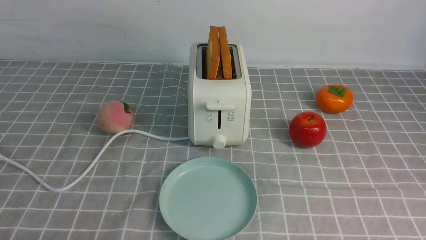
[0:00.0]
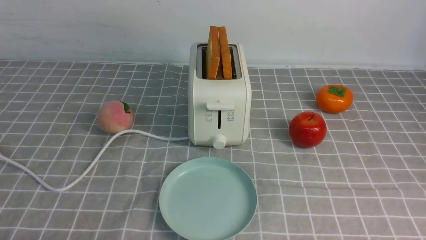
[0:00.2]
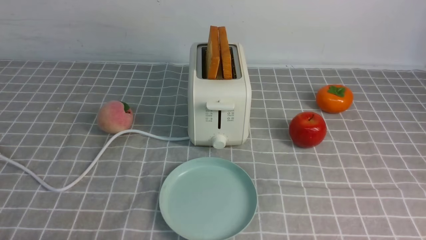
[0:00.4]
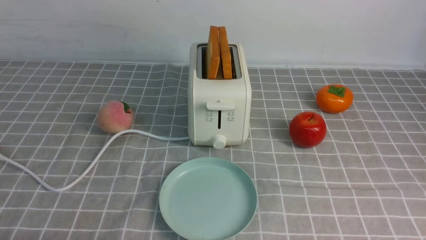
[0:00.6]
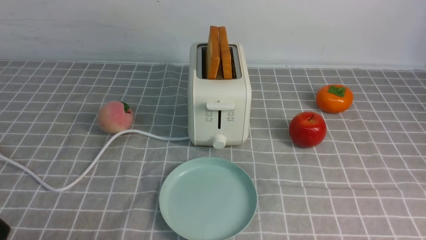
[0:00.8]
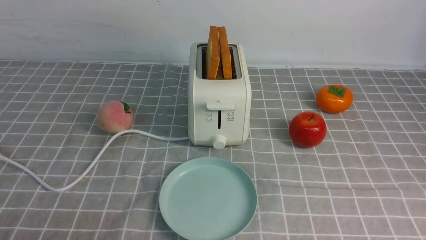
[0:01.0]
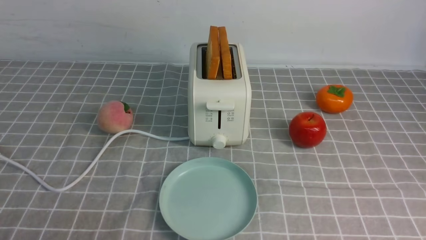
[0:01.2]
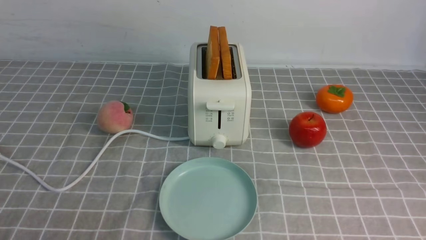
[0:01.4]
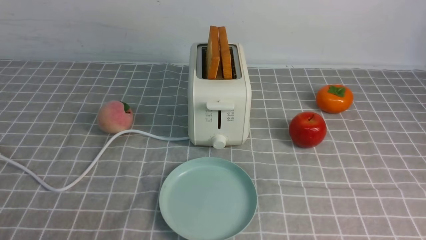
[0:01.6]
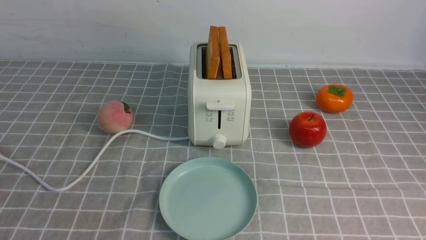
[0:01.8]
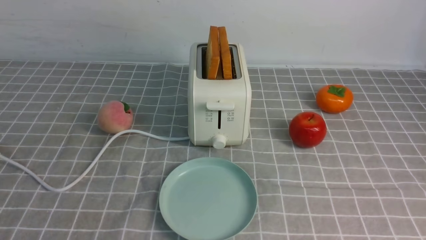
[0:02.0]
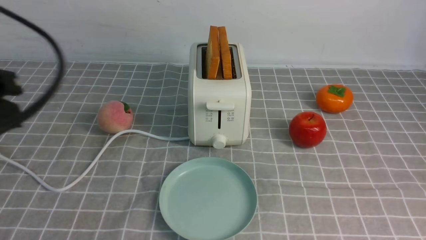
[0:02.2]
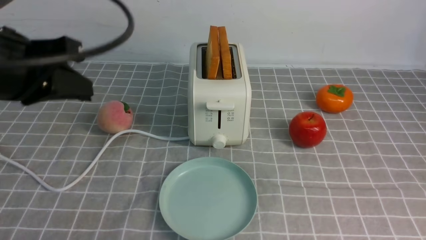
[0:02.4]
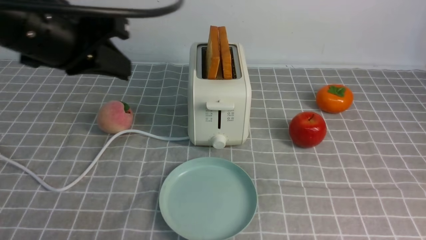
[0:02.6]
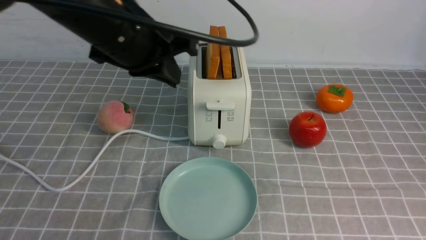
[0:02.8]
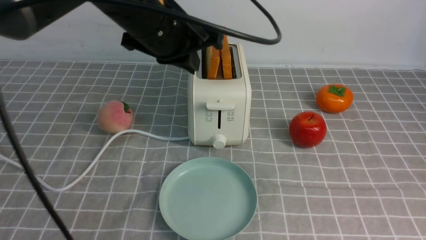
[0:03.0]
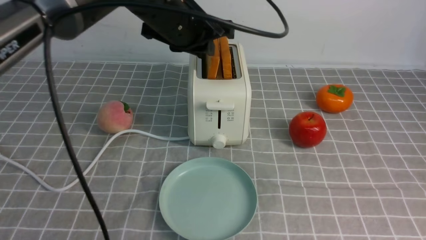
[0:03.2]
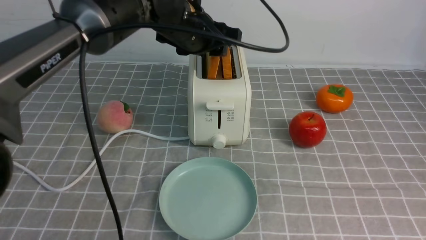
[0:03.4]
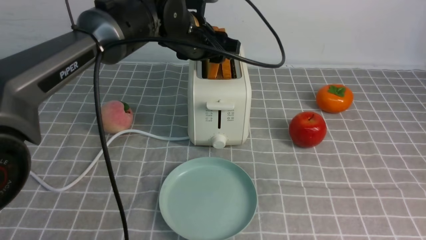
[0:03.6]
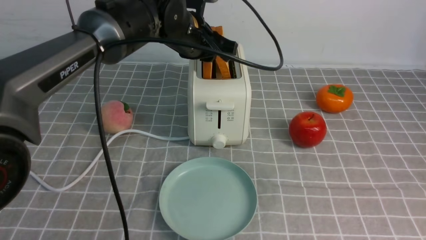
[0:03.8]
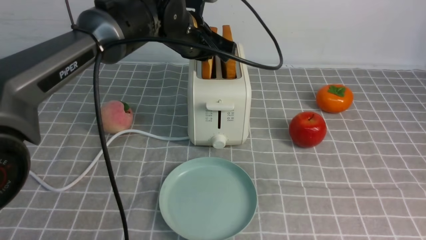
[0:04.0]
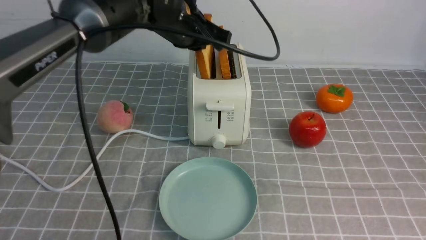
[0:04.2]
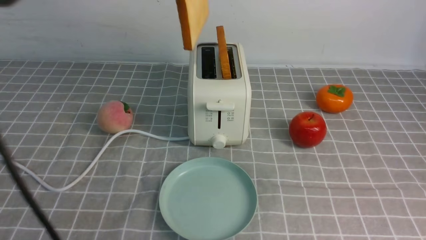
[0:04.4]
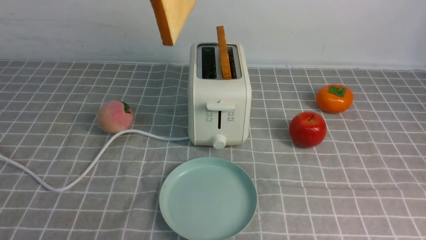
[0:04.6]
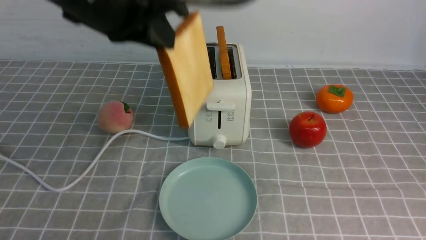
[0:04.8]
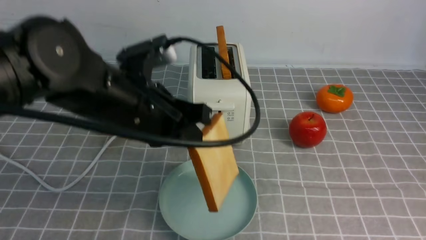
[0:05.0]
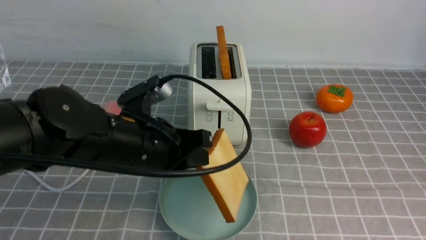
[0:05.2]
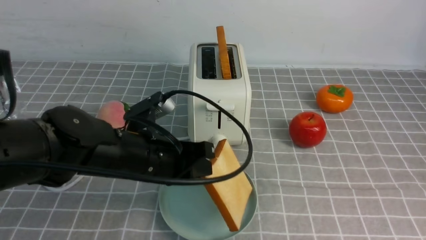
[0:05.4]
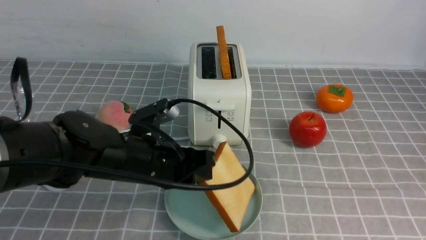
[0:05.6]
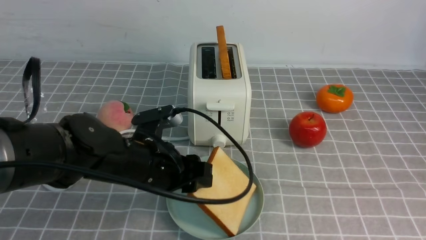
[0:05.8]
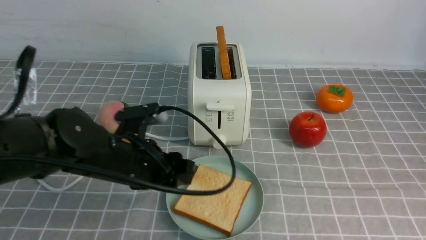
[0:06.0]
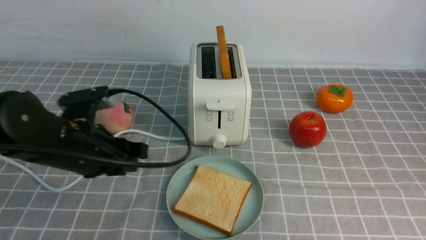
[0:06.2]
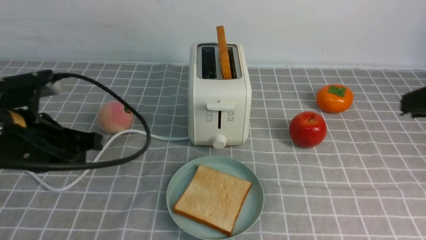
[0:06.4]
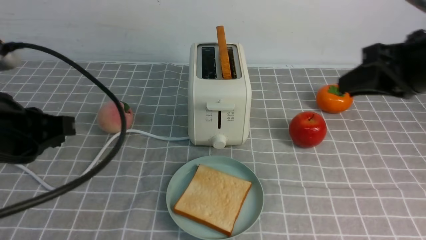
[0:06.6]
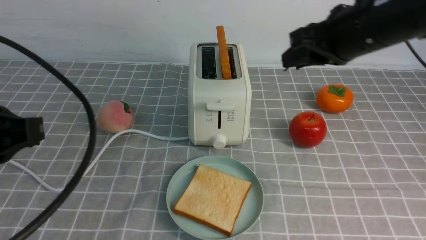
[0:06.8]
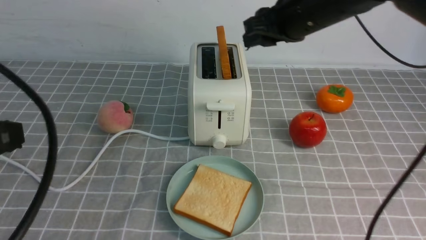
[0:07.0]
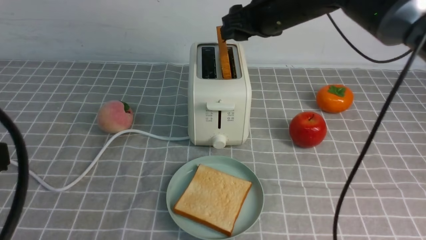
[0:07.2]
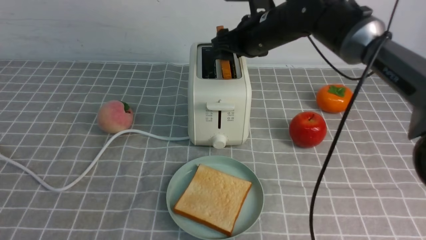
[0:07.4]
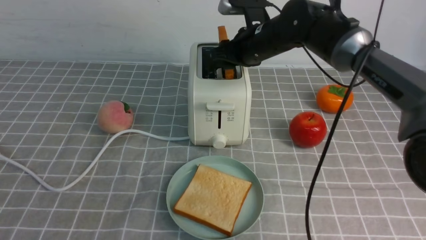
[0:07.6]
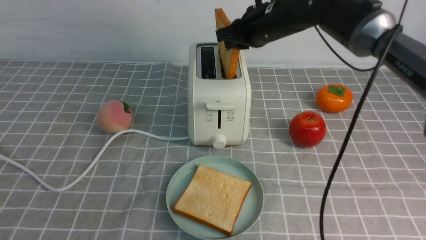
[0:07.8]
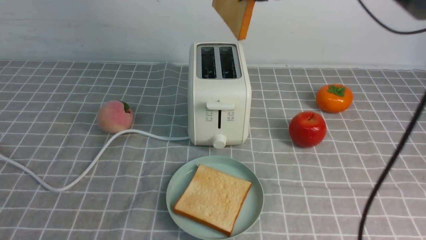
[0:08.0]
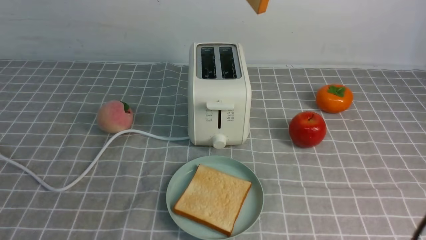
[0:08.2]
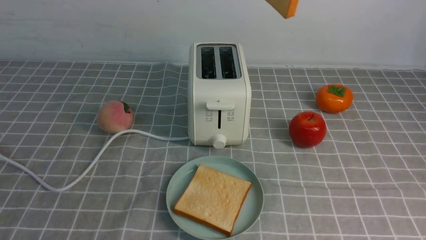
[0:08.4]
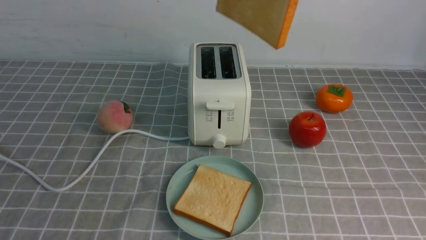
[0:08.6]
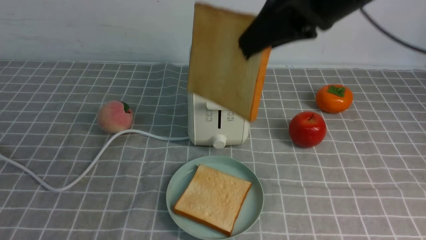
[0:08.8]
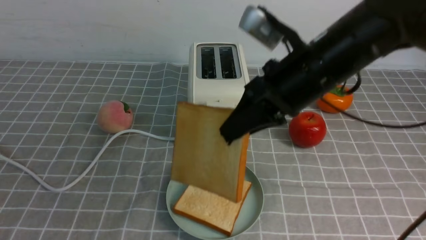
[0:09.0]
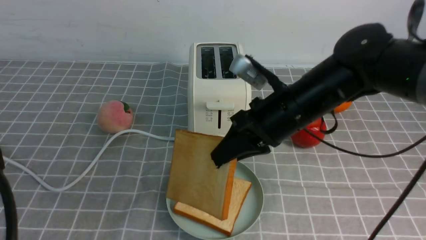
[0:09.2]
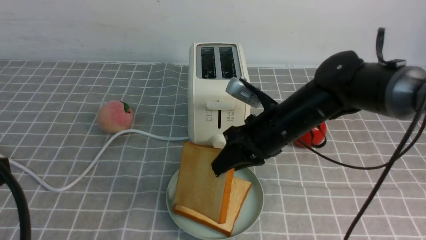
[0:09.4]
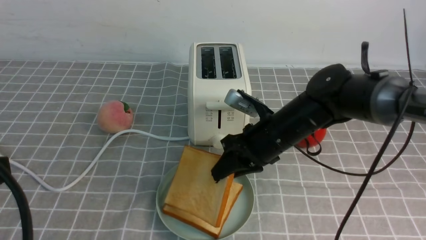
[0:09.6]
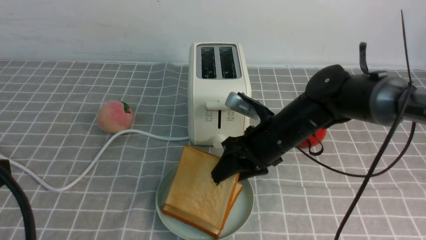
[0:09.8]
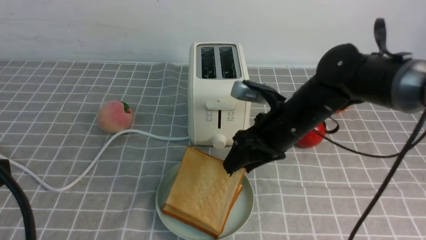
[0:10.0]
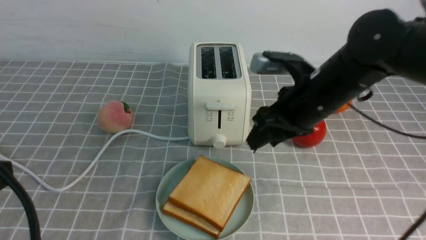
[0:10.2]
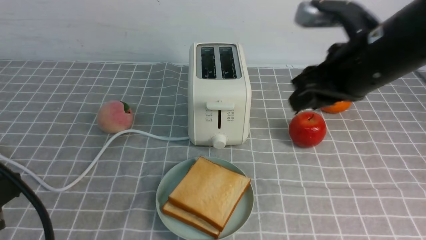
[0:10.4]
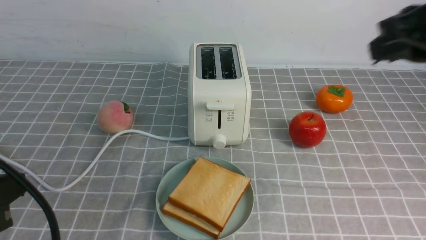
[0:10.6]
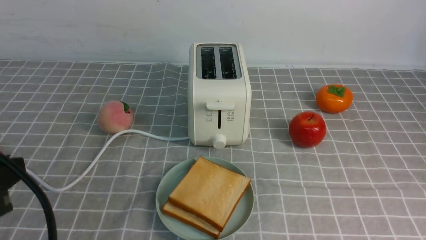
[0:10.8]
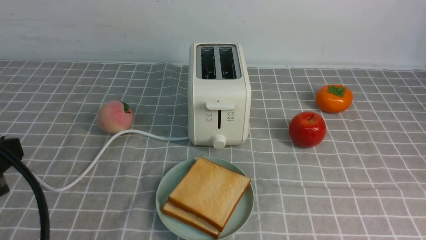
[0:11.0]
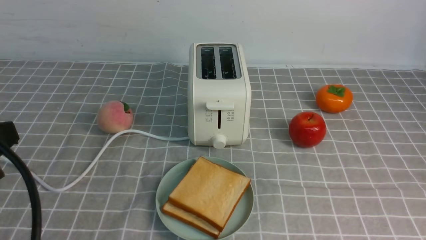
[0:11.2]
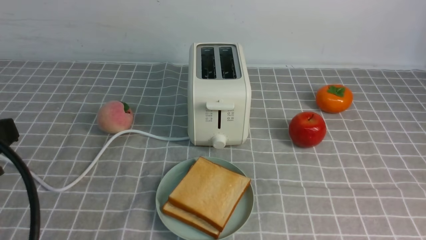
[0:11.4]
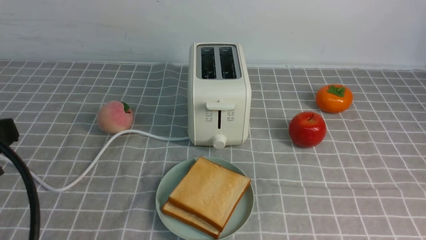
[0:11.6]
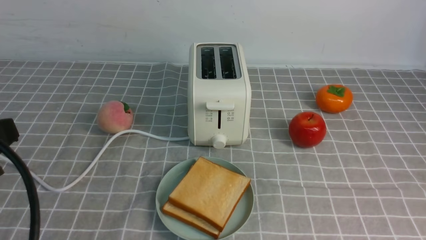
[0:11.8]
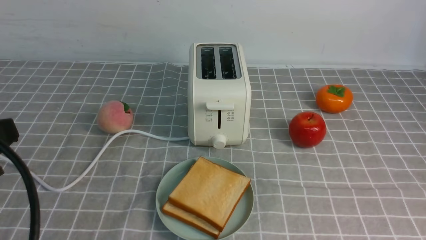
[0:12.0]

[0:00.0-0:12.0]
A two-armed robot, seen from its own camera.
Task of the whole recording: take toasted bread from bread machine on grey coffee table place on plate.
Step, 0:00.0 to 0:04.2: use the left arm to take out a slice of bread.
Step, 0:04.6 to 0:06.0: use the left arm to put a slice of bread into the empty plate.
Step, 0:06.2 to 0:07.8: use the right arm to take out a slice of bread.
Step, 0:08.0 to 0:10.0: use the right arm to put a slice of bread into the plate.
0:01.6 to 0:03.0: The left gripper heads forward and to the right, covering about 35 cm. Meanwhile the right gripper heads upward, covering approximately 10 cm, and closes.
0:03.0 to 0:04.4: The left gripper is displaced upward by about 5 cm, and opens, then closes once more.
0:04.4 to 0:06.0: The left gripper is displaced downward by approximately 25 cm, and opens up.
0:06.0 to 0:07.6: The right gripper goes roughly 40 cm forward and to the left, and opens up, while the left gripper shifts approximately 30 cm backward, upward and to the left, and closes up.
0:07.6 to 0:09.0: The right gripper shifts some 15 cm backward, travels upward and back again, roughly 20 cm each way, and closes.
0:09.0 to 0:10.4: The right gripper moves to the right, approximately 5 cm, travels downward and back again, approximately 15 cm each way, and opens its fingers.
0:10.4 to 0:12.0: The right gripper goes approximately 25 cm backward and to the right.

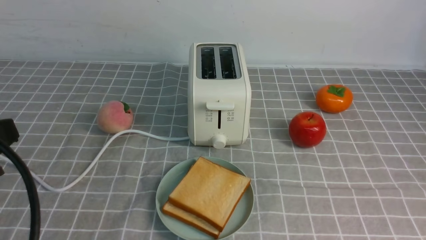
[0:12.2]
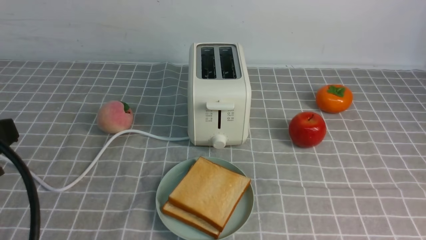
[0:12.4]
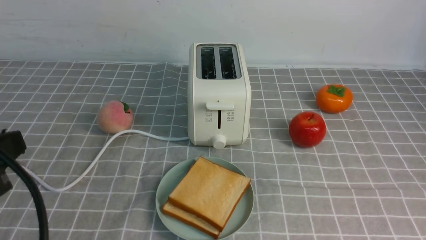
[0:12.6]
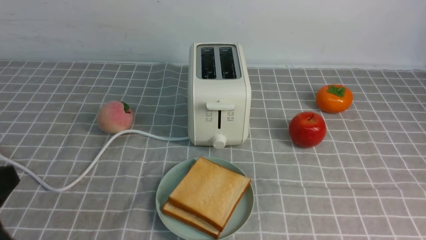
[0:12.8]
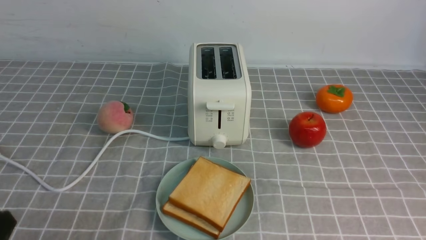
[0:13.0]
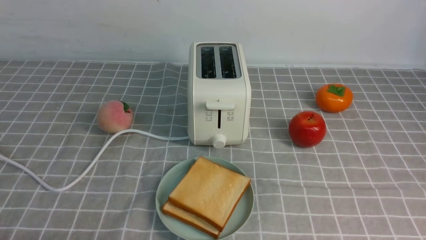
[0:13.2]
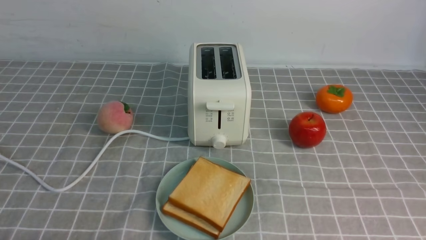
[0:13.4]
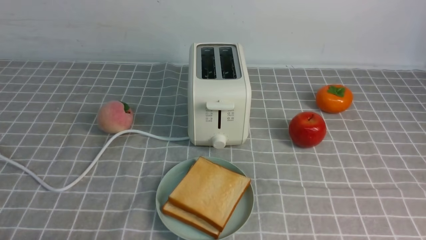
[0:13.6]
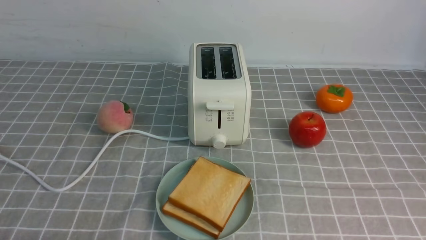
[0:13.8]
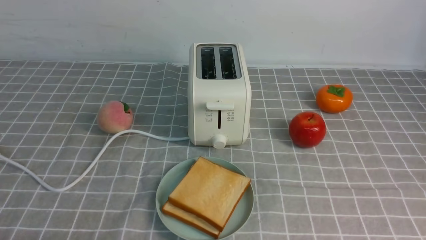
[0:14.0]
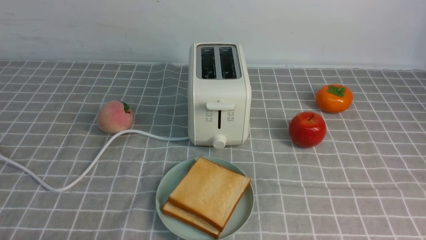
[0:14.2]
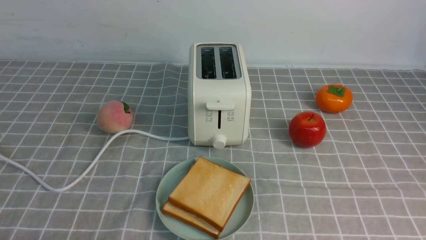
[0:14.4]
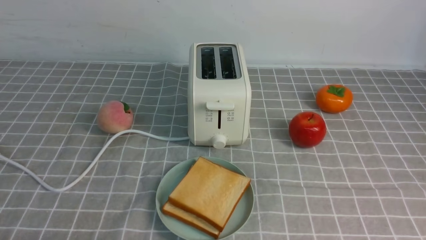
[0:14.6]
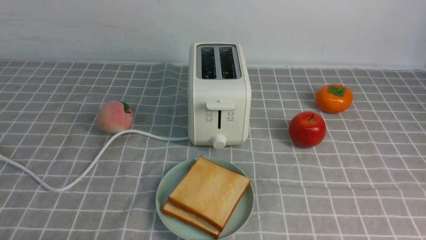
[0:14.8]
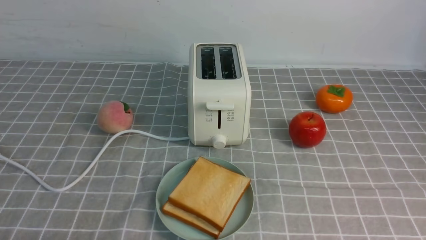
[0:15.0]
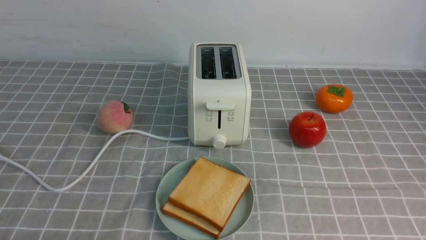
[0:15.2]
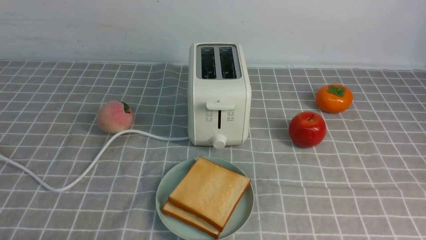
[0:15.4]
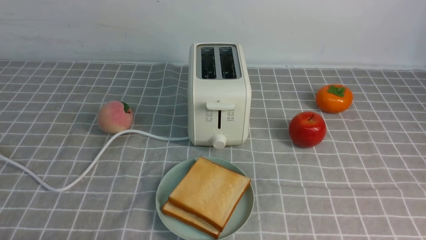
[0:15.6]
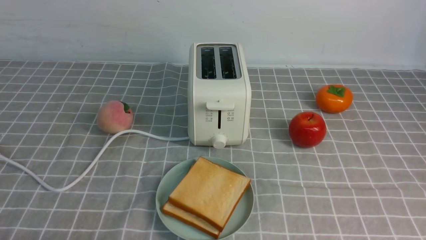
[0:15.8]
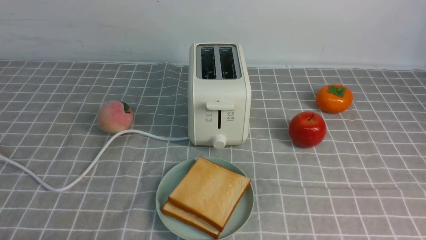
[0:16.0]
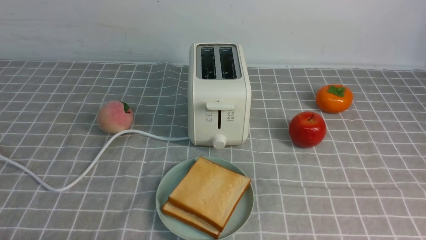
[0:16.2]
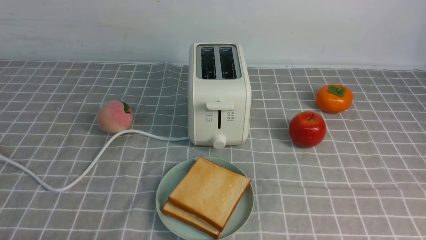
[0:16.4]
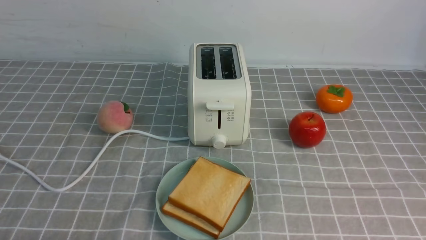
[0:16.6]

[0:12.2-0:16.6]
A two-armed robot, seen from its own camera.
Task of the whole recording: take toasted bread from bread machine on grey coffee table place on plate.
0:12.2 to 0:13.6: The left gripper is displaced downward by about 20 cm.
